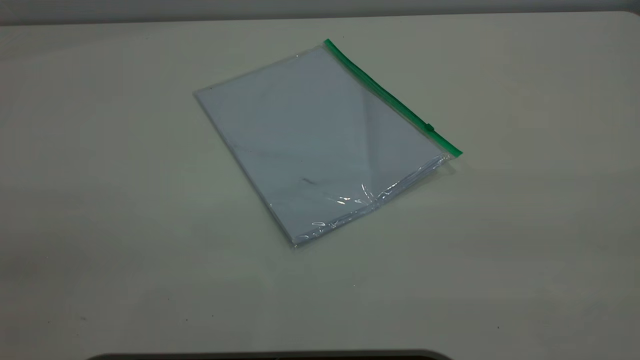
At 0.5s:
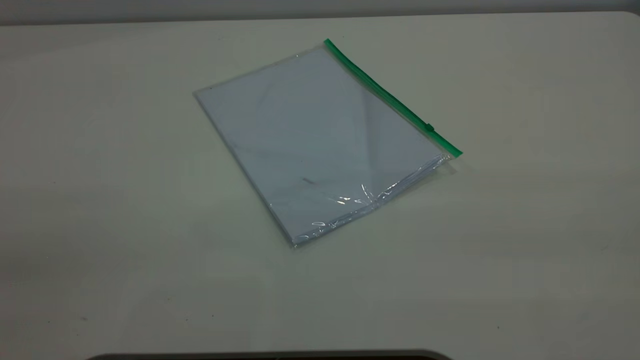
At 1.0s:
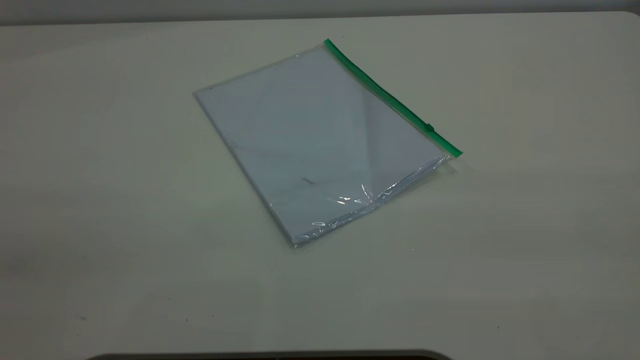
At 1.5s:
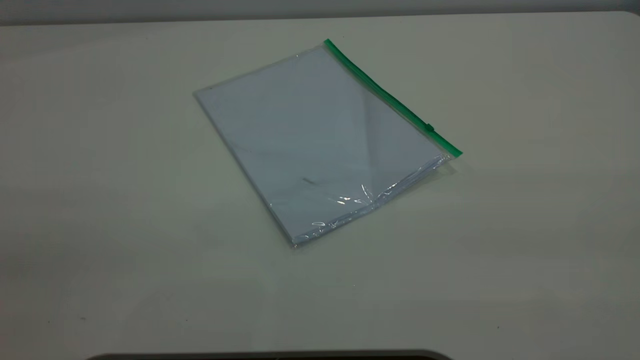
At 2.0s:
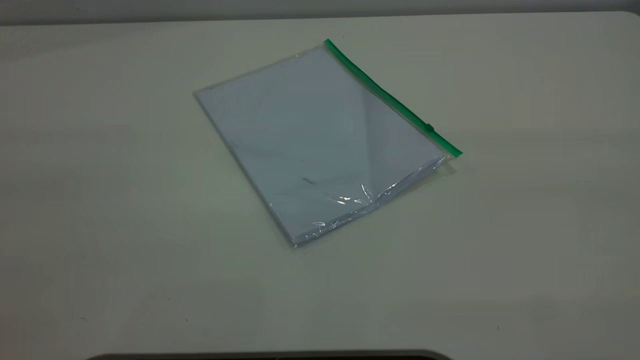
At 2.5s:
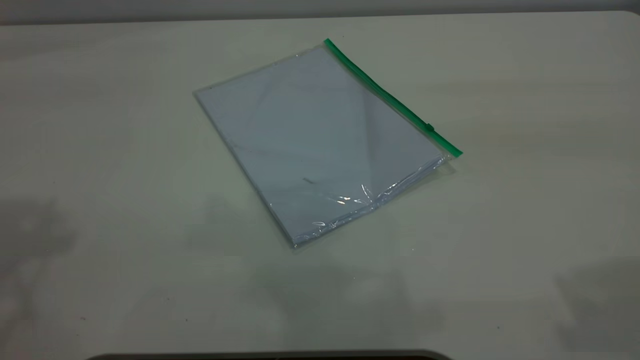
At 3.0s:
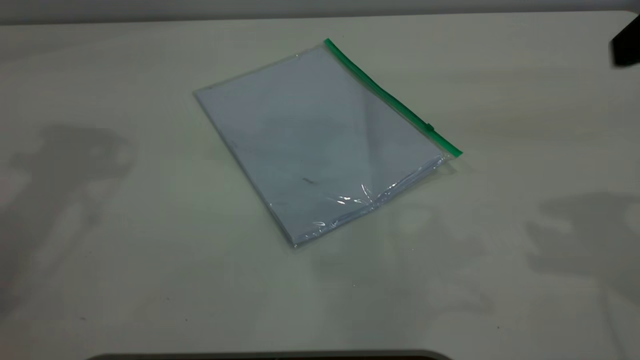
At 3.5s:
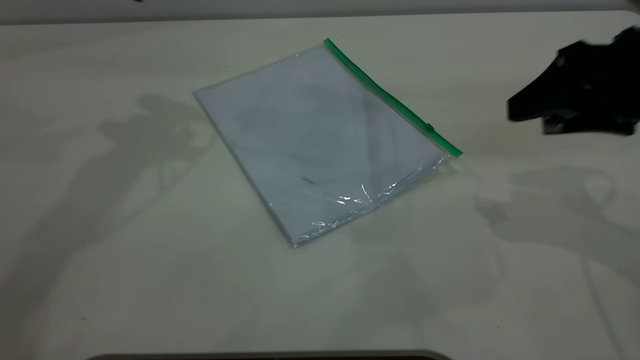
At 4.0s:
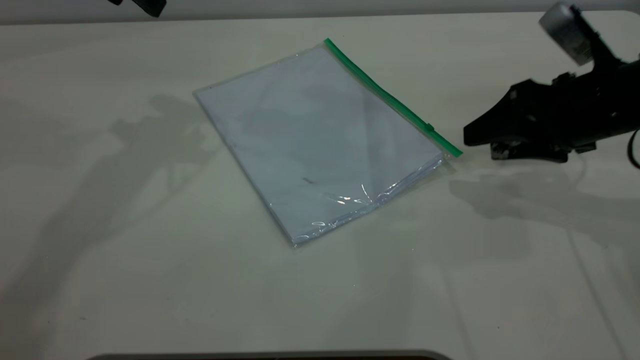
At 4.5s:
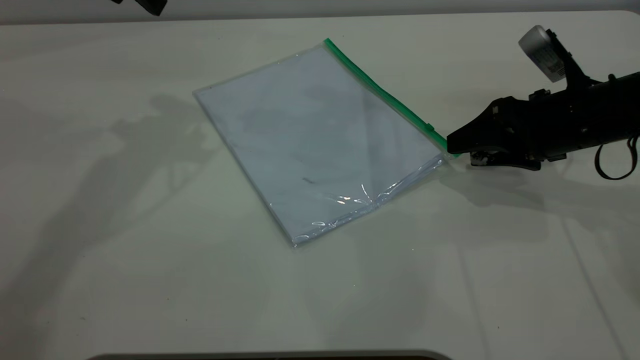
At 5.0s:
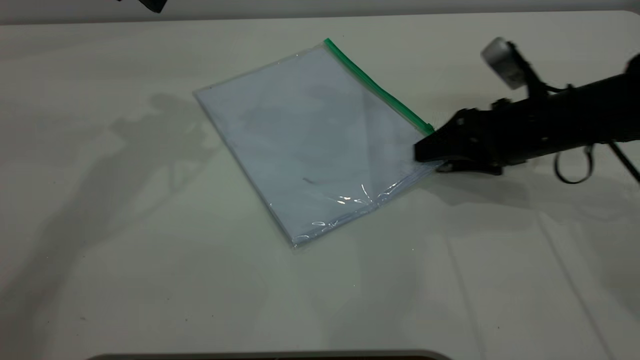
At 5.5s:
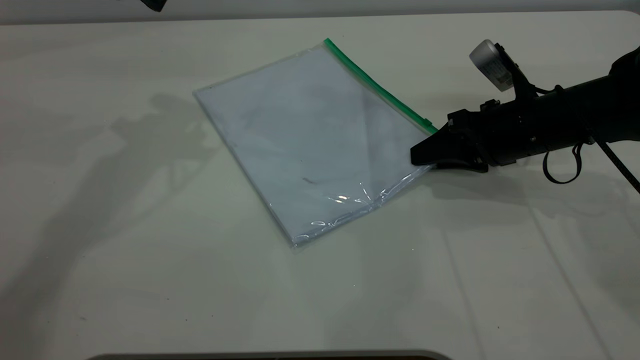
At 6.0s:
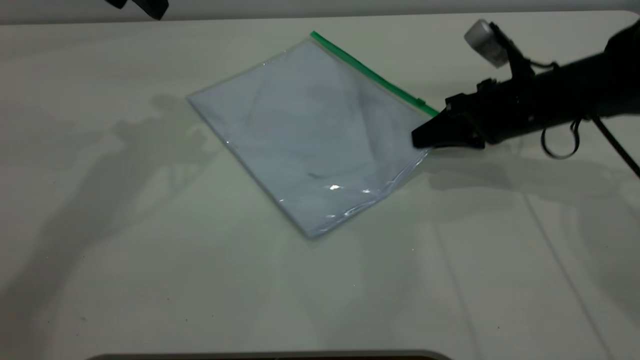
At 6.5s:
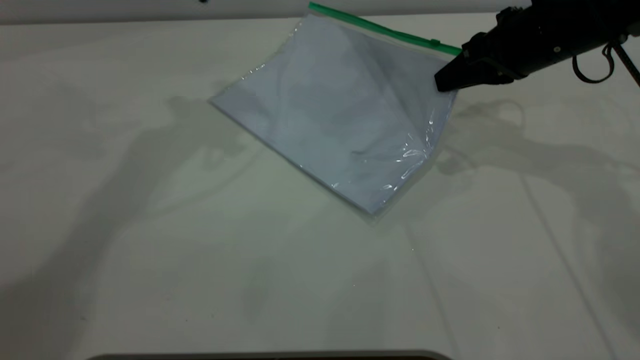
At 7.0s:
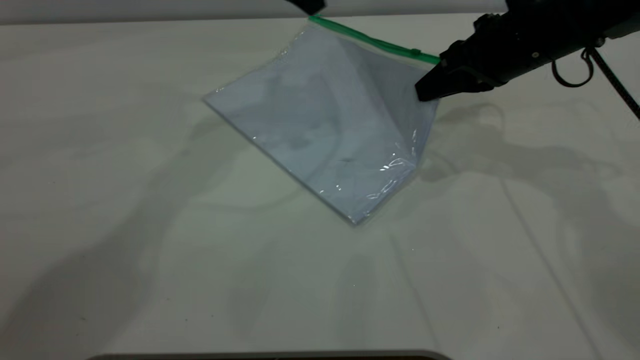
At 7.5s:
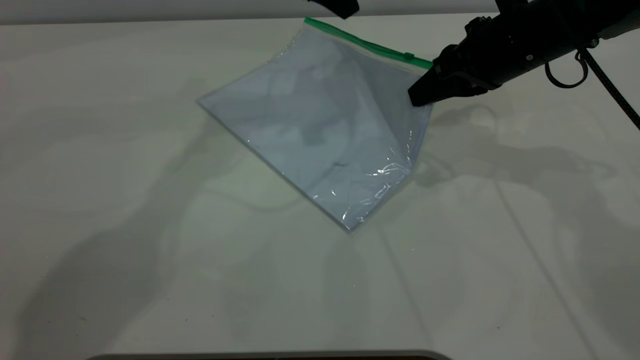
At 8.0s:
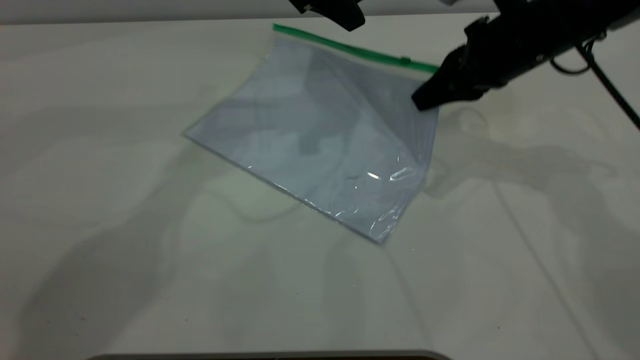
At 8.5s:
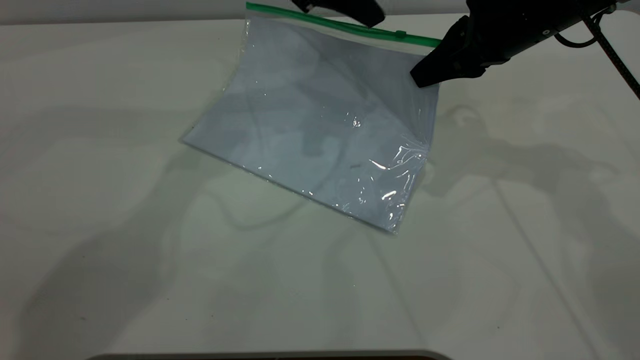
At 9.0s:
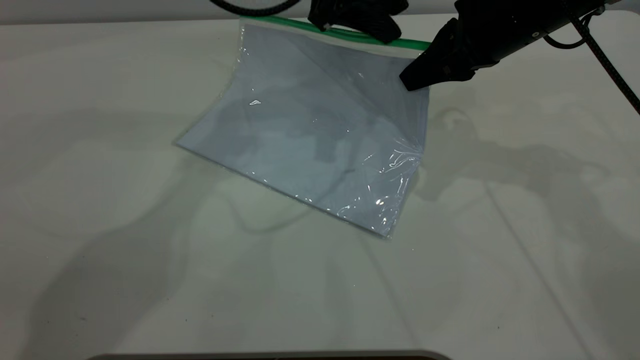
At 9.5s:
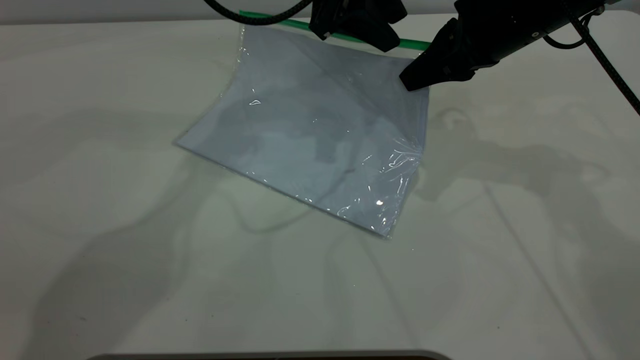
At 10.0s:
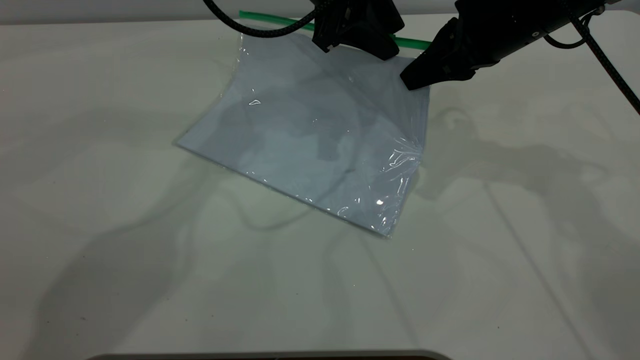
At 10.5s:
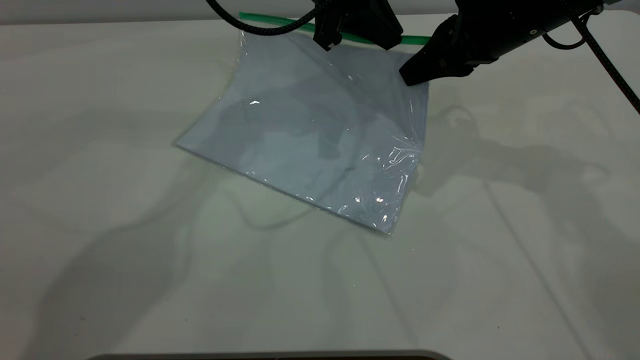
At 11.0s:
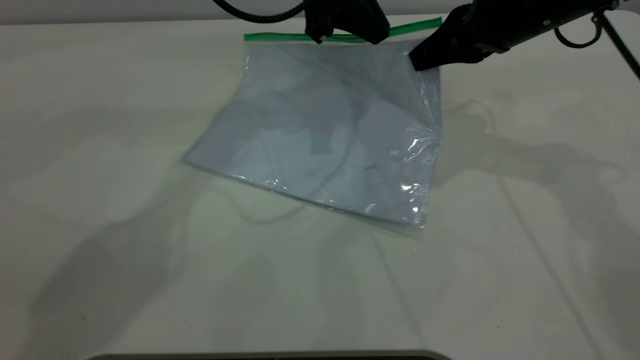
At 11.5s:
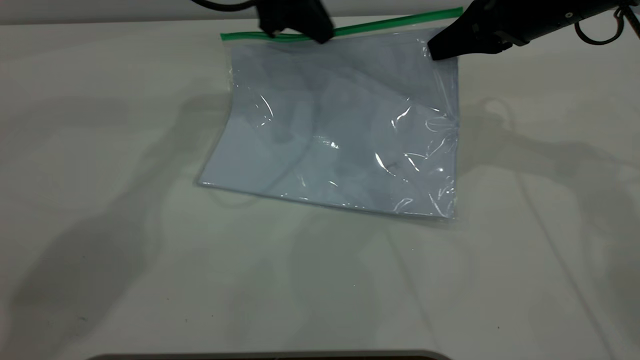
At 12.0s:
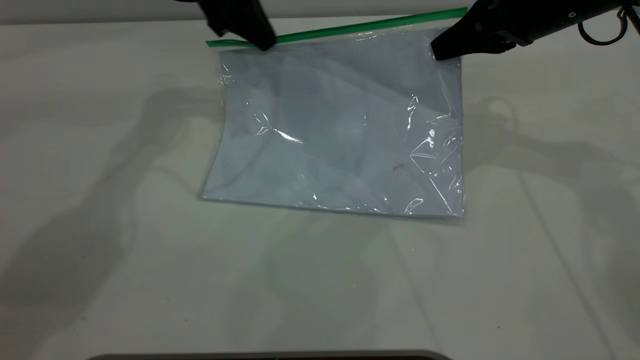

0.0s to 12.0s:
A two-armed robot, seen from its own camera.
Step, 0.0s to 6.0s: Pick up the transparent plastic bag with the right gripper.
2.0s to 4.0s: The right gripper is displaced downward and forward by roughly 40 cm.
4.0s to 6.0s: The right gripper travels forward by about 5 cm, and closes.
6.0s to 8.0s: The left gripper heads to the right, covering approximately 15 cm. The right gripper moves upward, roughly 10 cm.
8.0s to 10.0s: The grippers make only small movements.
10.0s to 12.0s: The left gripper shifts about 15 cm to the left, and closes.

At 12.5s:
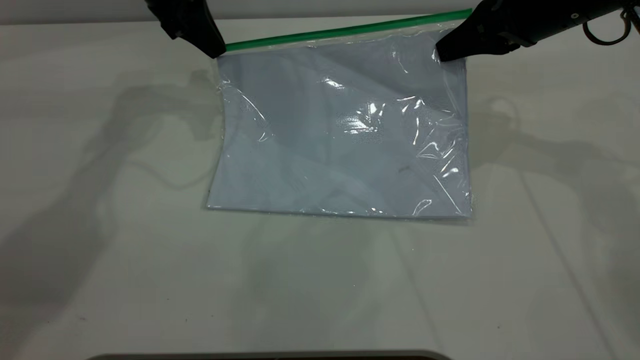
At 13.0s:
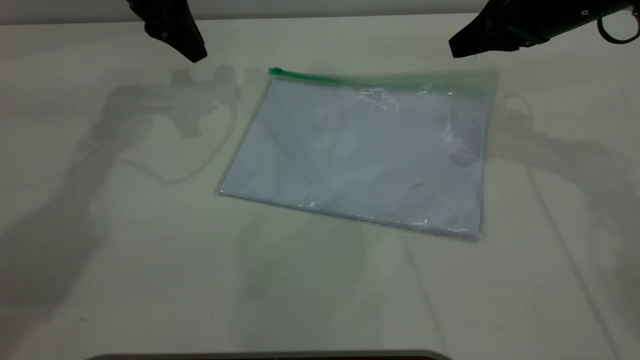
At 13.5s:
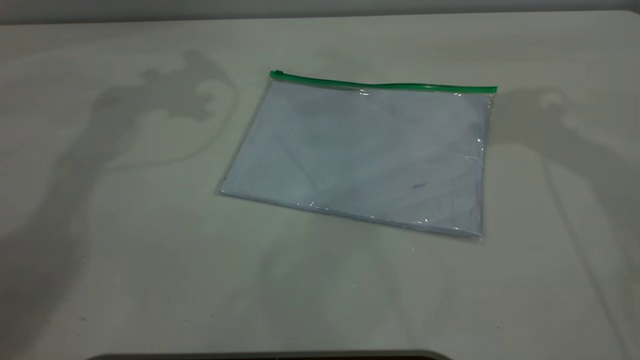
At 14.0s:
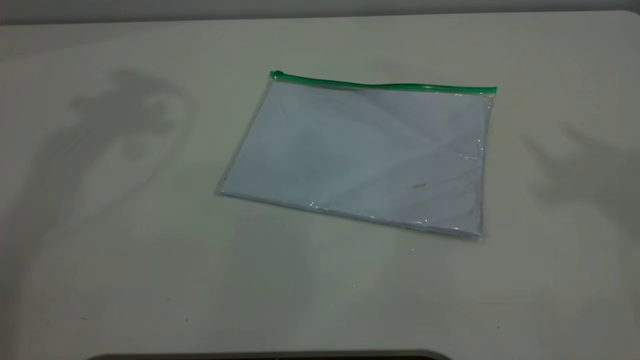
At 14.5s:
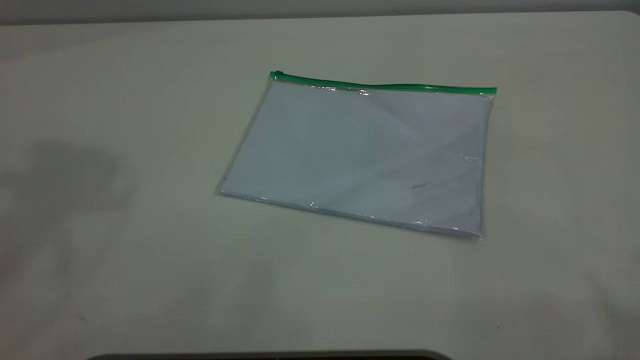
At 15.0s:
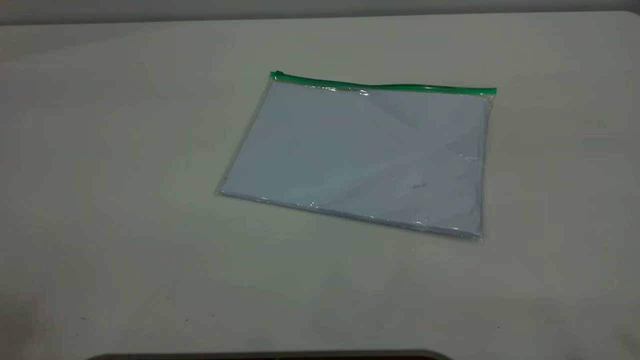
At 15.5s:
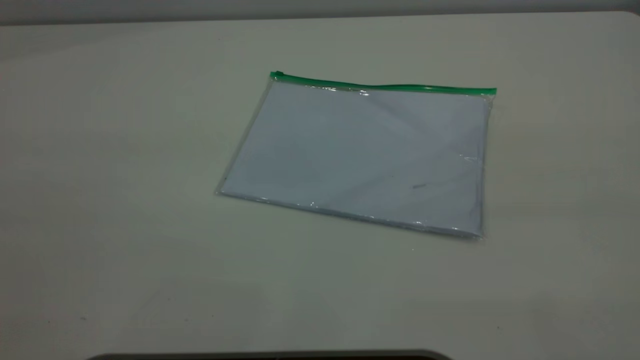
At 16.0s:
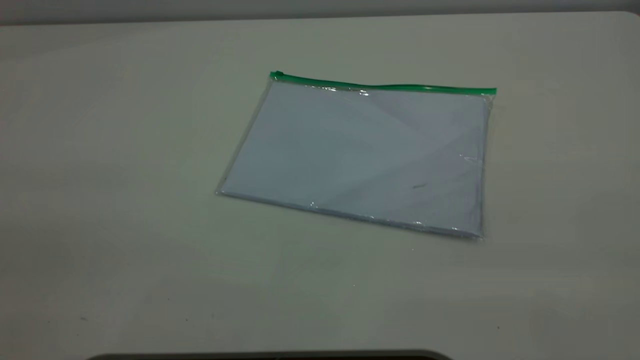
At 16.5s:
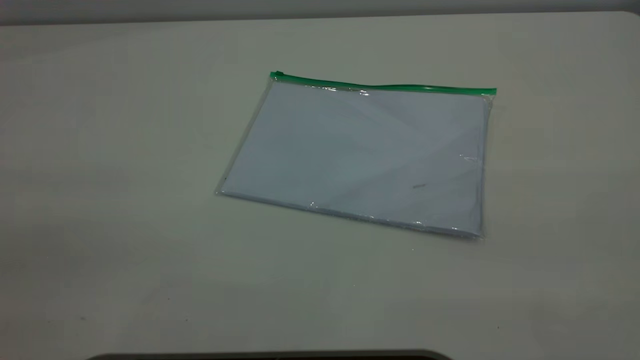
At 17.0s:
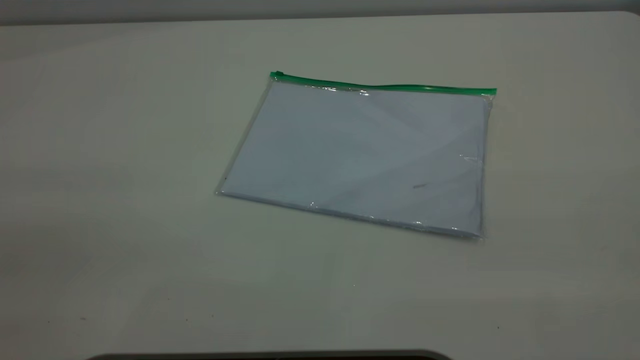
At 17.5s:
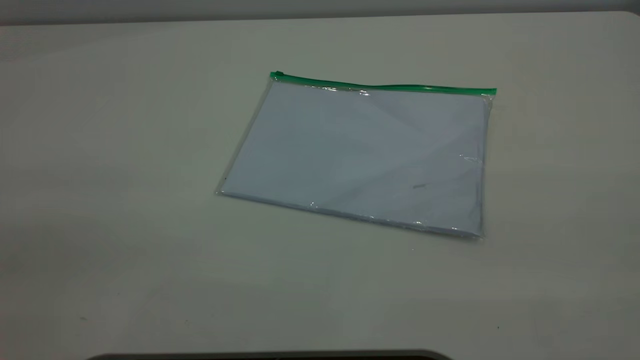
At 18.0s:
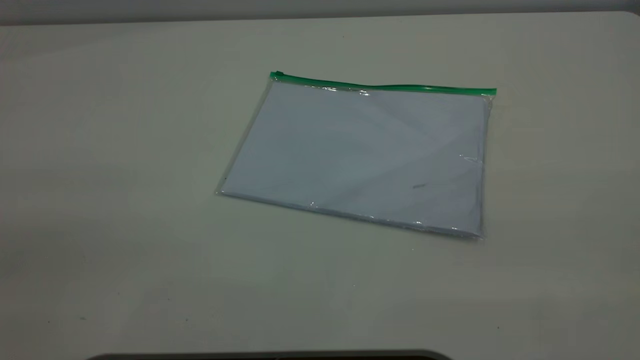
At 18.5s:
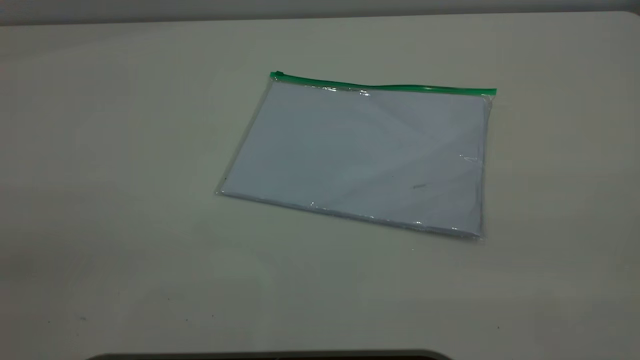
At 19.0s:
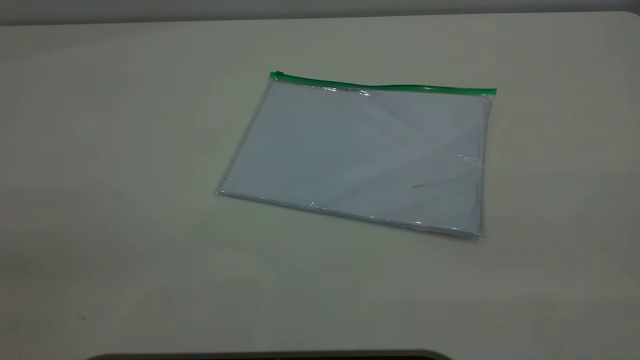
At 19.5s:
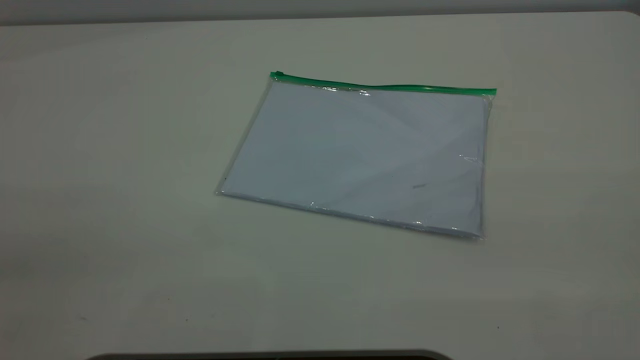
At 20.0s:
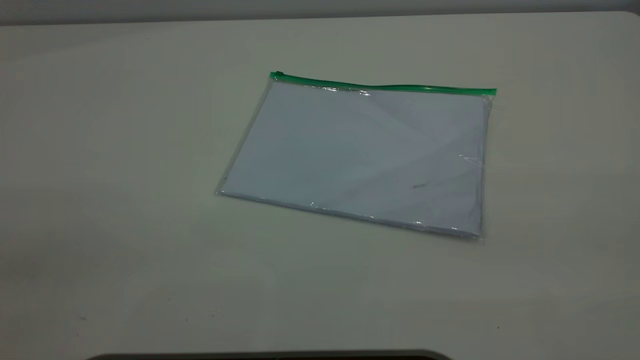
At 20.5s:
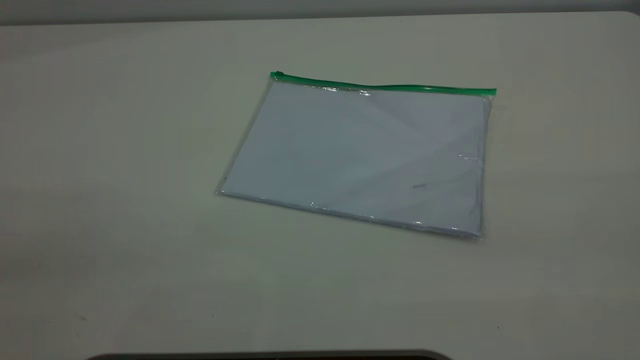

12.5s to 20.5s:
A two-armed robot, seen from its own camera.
12.5s to 14.5s: The grippers both shift upward and backward by approximately 50 cm. The right gripper opens; the left gripper opens its fingers.
